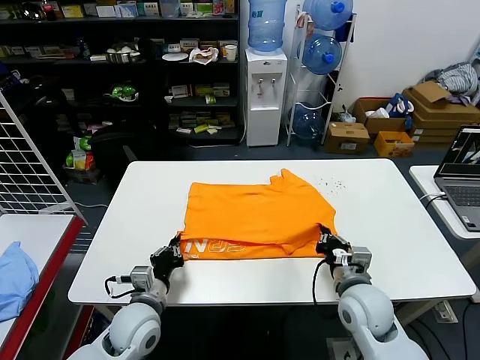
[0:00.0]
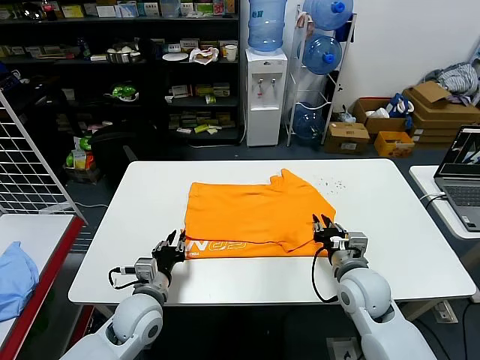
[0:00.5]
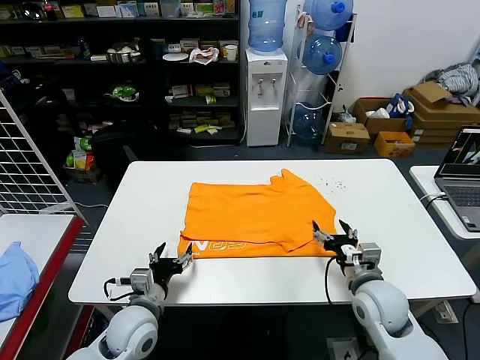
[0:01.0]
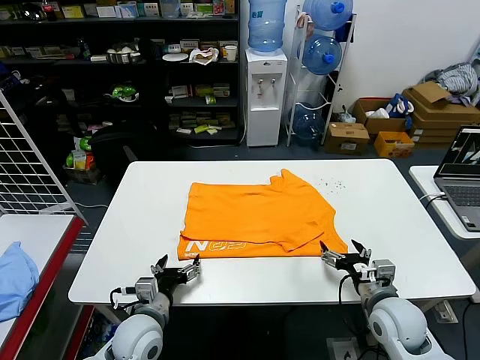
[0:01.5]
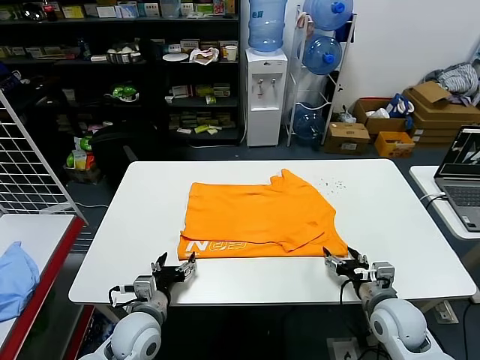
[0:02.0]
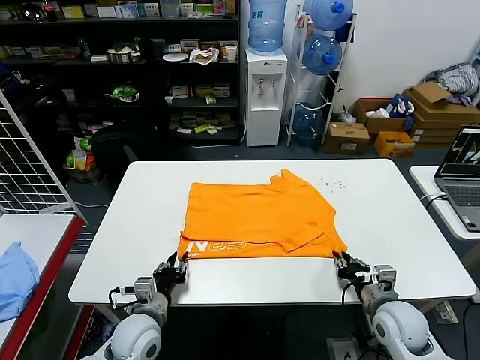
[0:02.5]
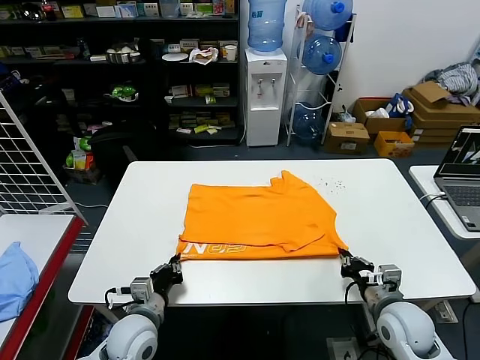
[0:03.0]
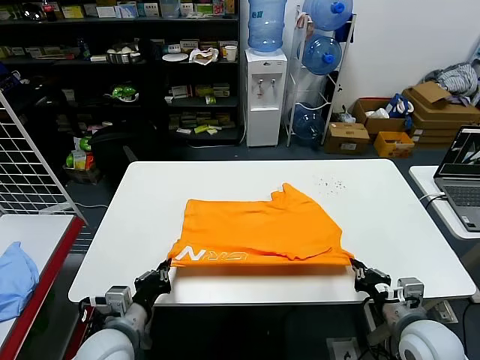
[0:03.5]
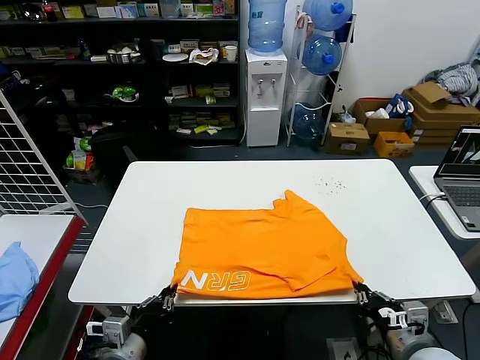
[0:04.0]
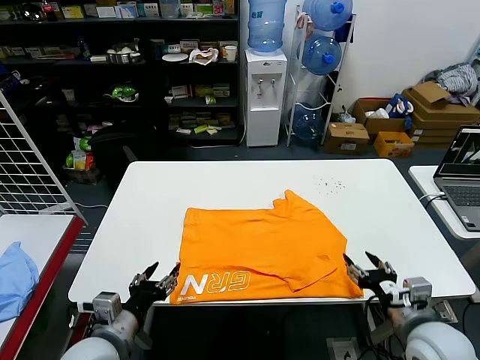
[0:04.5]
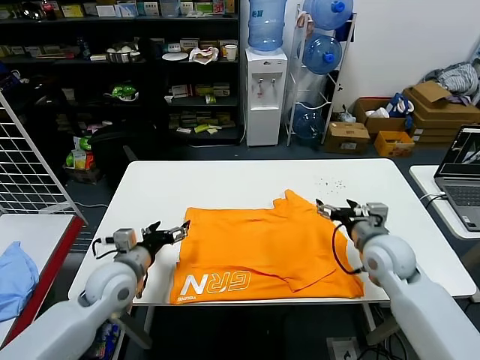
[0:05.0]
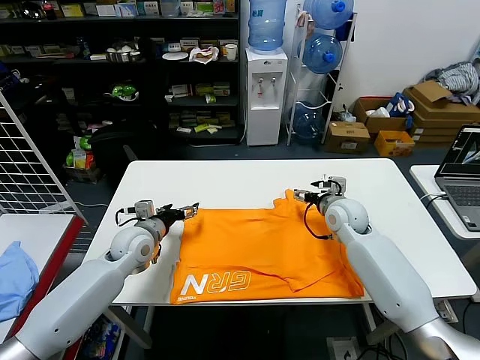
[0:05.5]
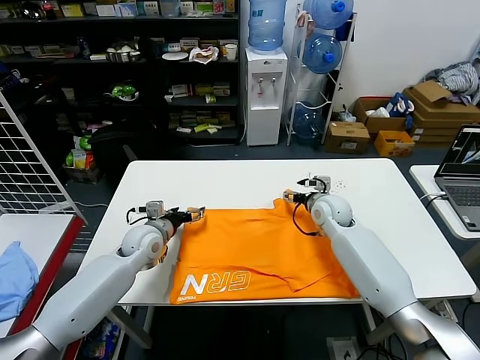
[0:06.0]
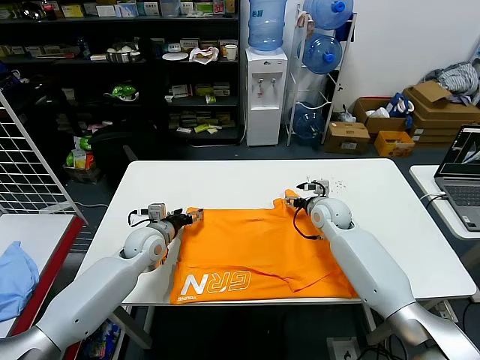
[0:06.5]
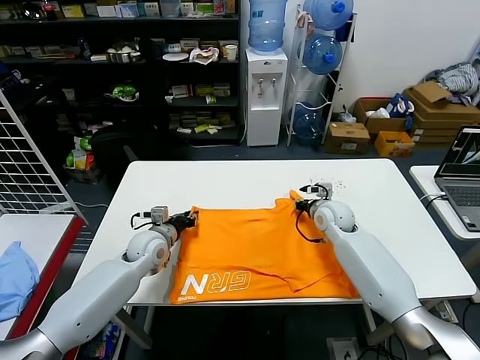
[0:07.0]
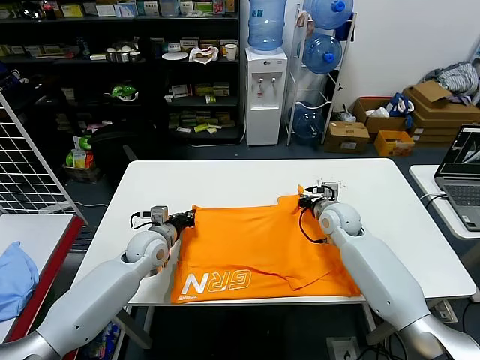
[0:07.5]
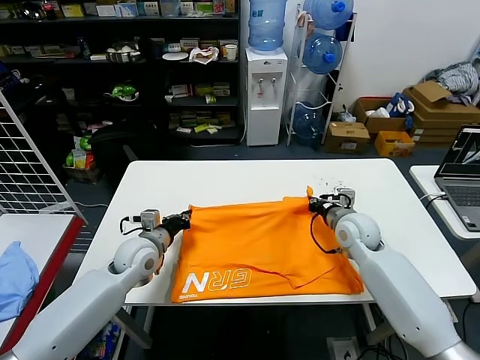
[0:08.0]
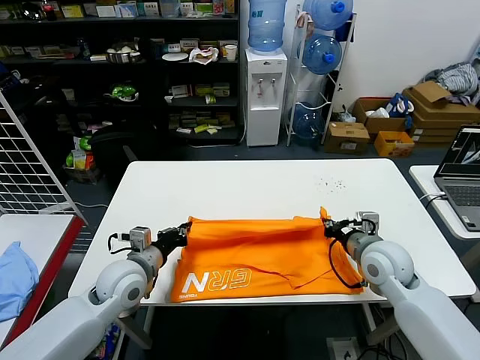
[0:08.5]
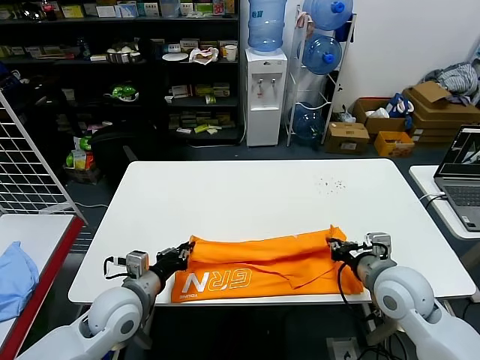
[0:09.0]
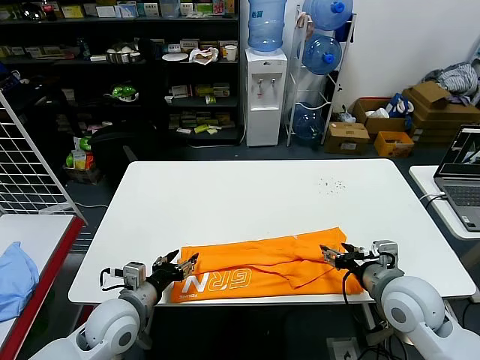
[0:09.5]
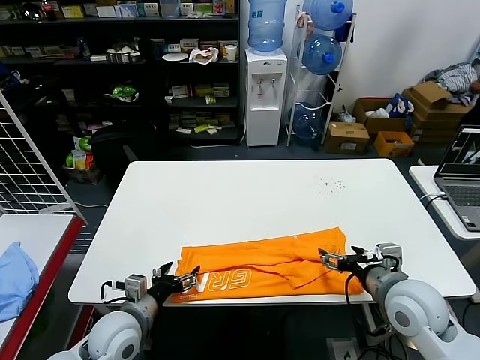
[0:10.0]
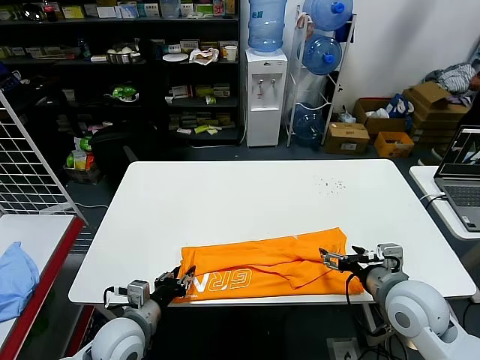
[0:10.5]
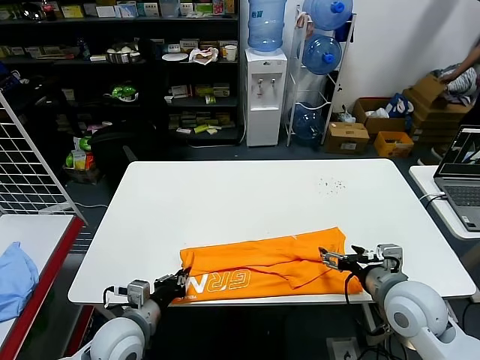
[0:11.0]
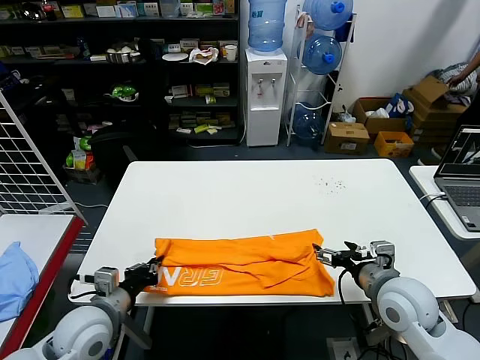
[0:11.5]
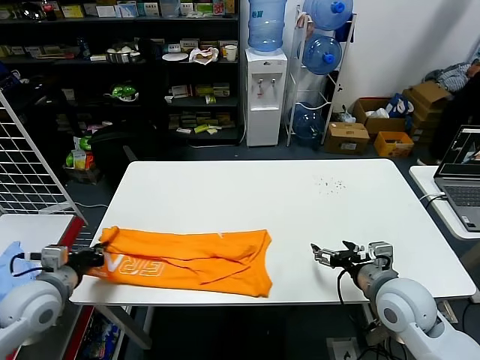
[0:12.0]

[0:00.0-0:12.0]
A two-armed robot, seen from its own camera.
Task of the whole recording: fold and organize the clothes.
Step, 0.5 to 4.0 s: Drag the clothes downward with both gripper.
Step, 4.5 to 7.0 s: use both grippers simultaneously to clamp the upper edge of the clothing fabric.
Step, 7.5 to 9.0 s: use both grippers to drag the upper edge of the fabric backward and fold it over the lower edge.
Step, 9.5 to 10.5 s: use the left gripper to clamp the left edge of the fabric.
0.0 to 2.0 s: The right gripper is displaced to the right by about 10 cm, and opens up, while the left gripper opens up.
2.0 to 4.0 s: The two grippers go roughly 10 cm backward and upward. The left gripper closes its fingers. The right gripper closes up.
4.0 to 6.0 s: The grippers both shift forward by some 30 cm. The right gripper opens its fingers; the left gripper opens.
6.0 to 8.0 s: The left gripper closes up, while the right gripper heads backward, covering about 10 cm, and closes its fingers.
8.0 to 10.0 s: The two grippers go about 15 cm backward. The right gripper opens up; the left gripper opens up.
10.0 to 12.0 s: The left gripper goes some 15 cm to the left and upward, and closes up.

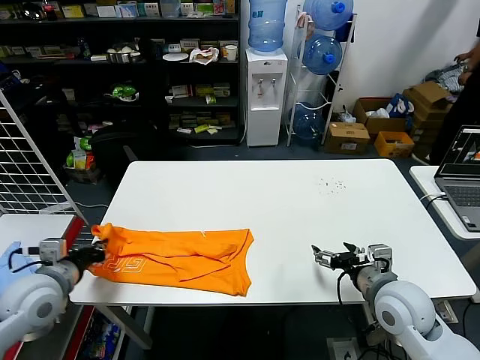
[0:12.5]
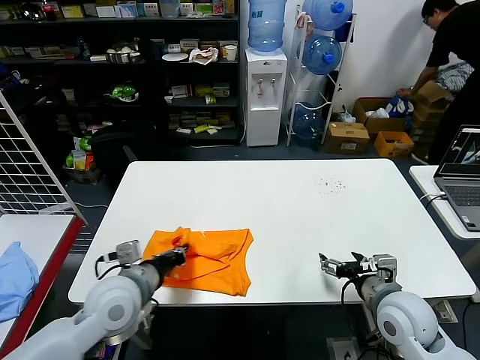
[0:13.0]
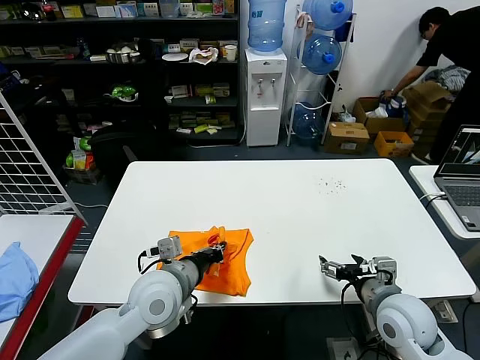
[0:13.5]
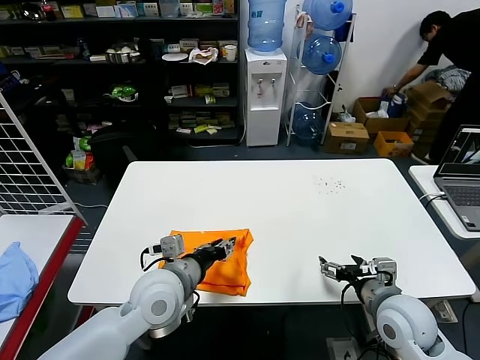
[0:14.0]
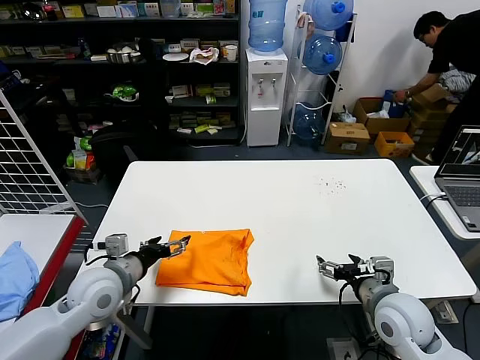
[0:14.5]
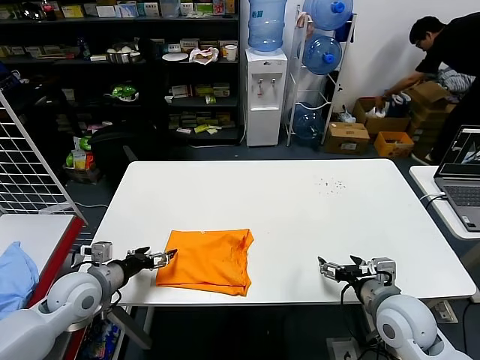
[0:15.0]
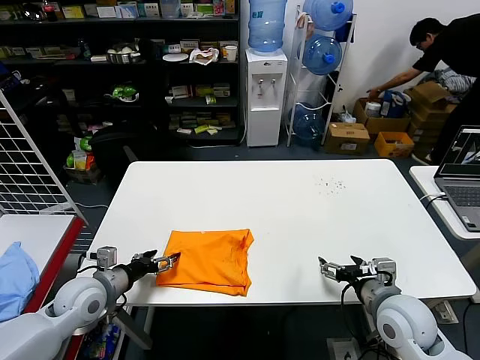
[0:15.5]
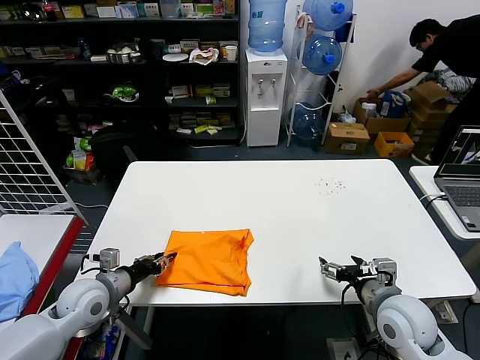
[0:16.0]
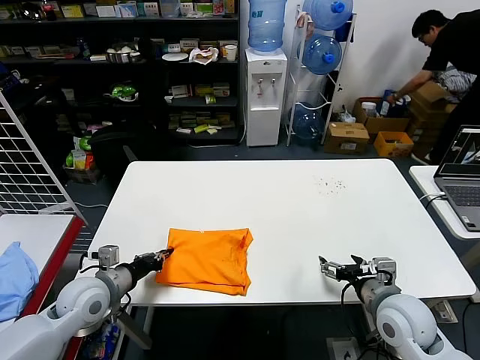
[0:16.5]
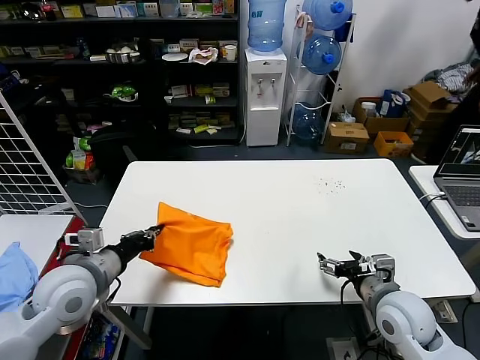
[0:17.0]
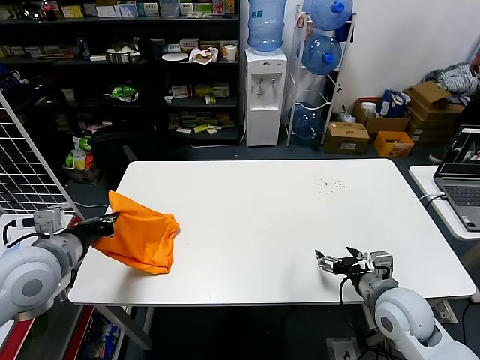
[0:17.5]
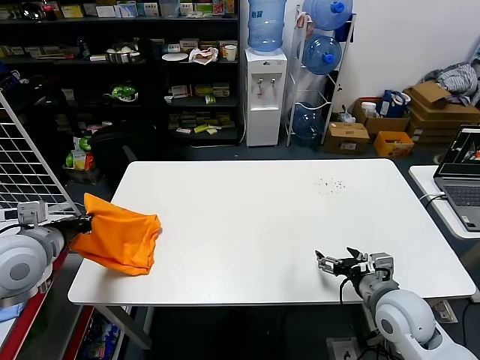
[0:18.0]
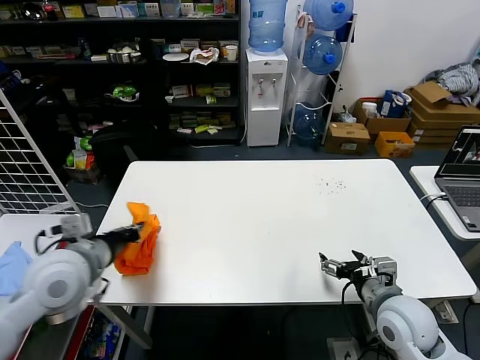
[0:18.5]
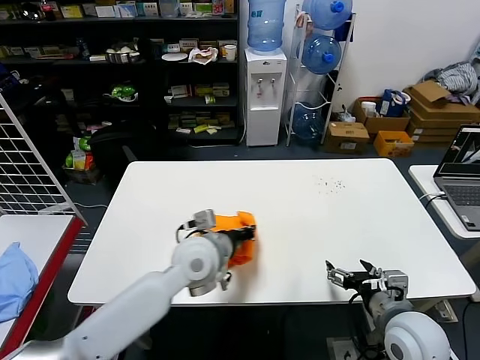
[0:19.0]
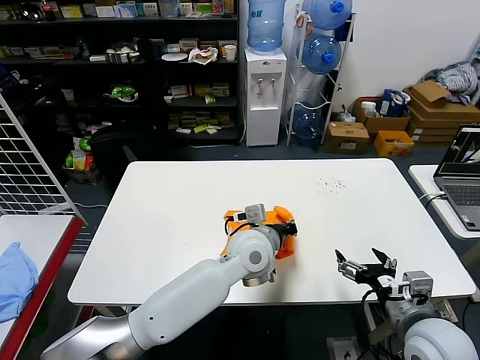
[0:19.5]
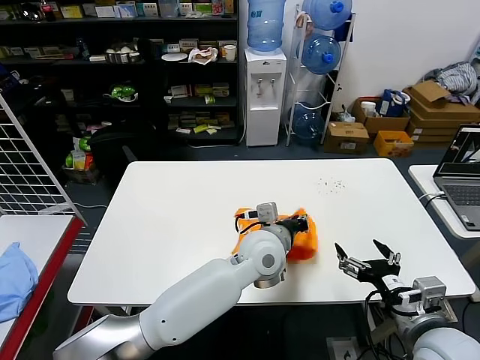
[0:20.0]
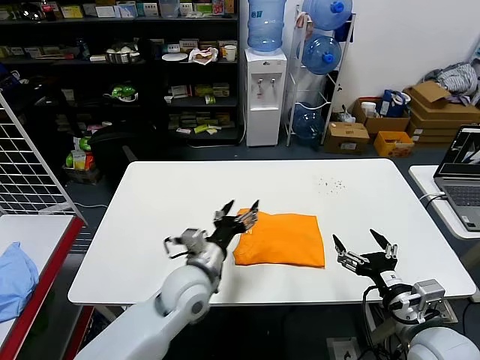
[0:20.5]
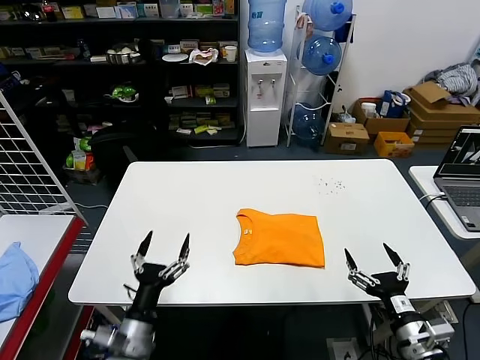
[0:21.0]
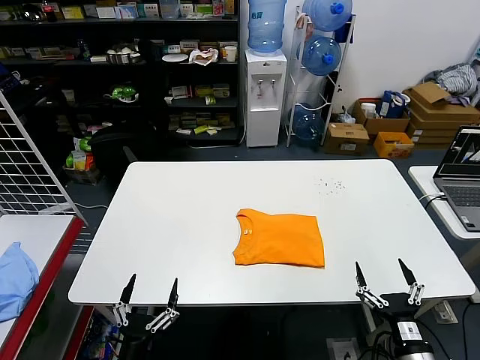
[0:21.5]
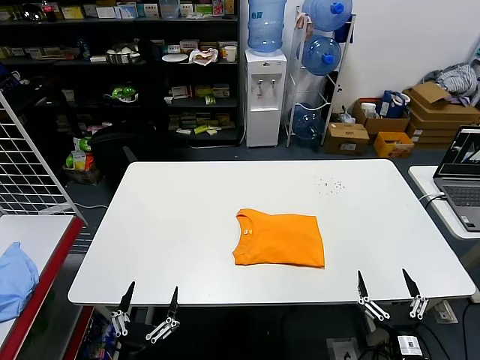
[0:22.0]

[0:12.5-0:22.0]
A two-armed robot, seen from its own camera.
Task of the whole recording: fold and organize the clothes.
Step, 14.0 to 19.5 s: Flip the folded clothes over with left gripper.
12.5 to 14.5 s: The left gripper travels to the right by about 10 cm, and opens its fingers.
14.5 to 16.5 s: The left gripper moves to the left, some 5 cm, and closes its fingers.
16.5 to 18.0 s: The left gripper goes some 15 cm upward.
18.0 to 20.0 s: The left gripper moves to the right, about 40 cm. Meanwhile the right gripper travels backward and upward by about 10 cm.
20.0 to 22.0 s: The right gripper heads downward and backward, covering about 15 cm. Meanwhile the left gripper is displaced backward, to the left and downward by about 40 cm, and opens.

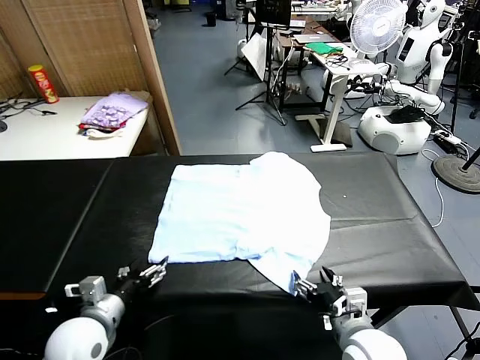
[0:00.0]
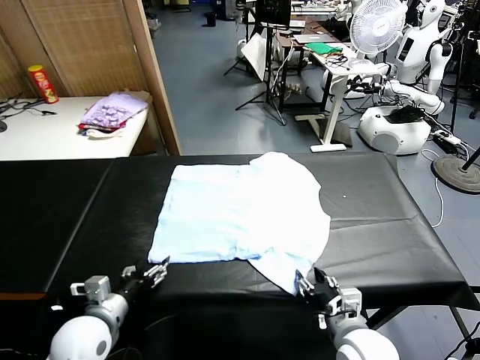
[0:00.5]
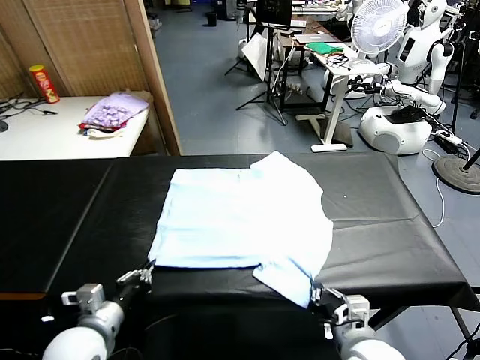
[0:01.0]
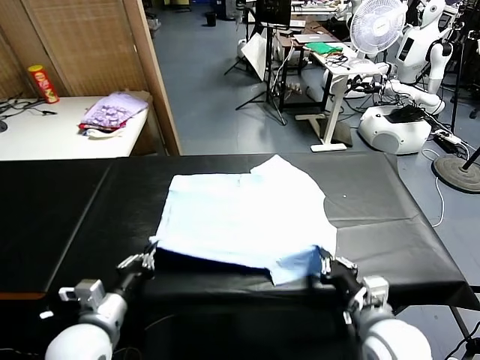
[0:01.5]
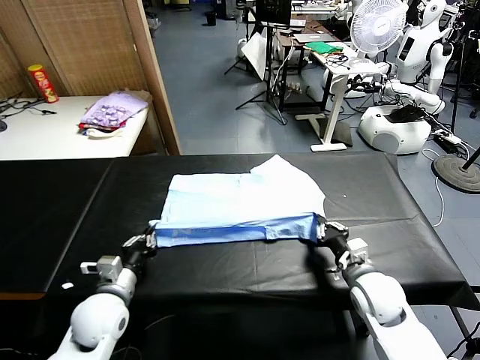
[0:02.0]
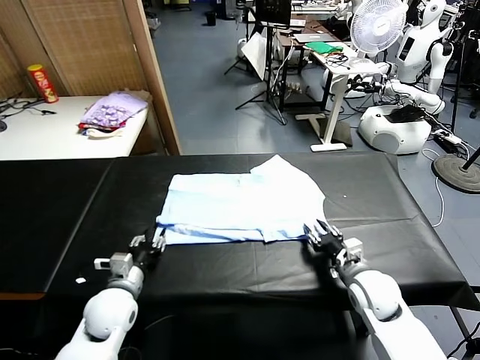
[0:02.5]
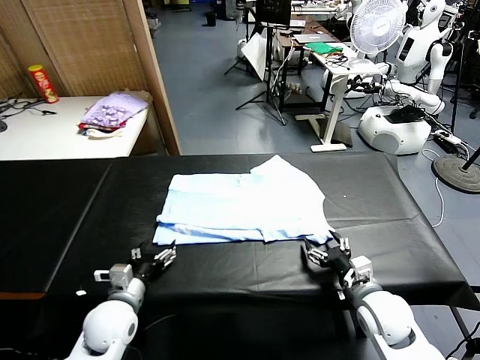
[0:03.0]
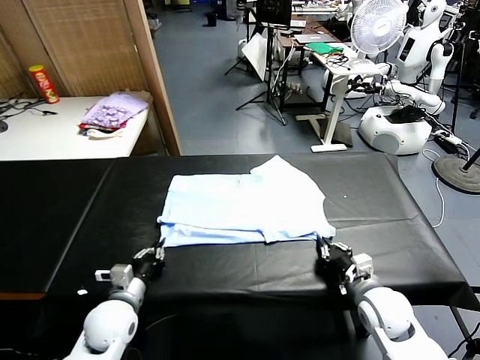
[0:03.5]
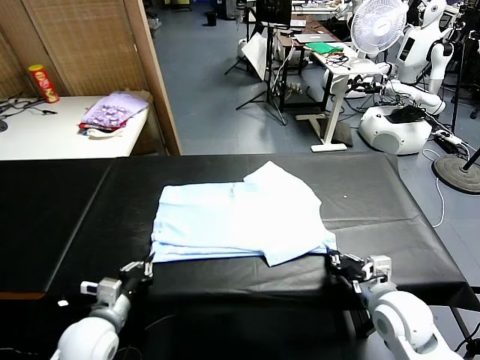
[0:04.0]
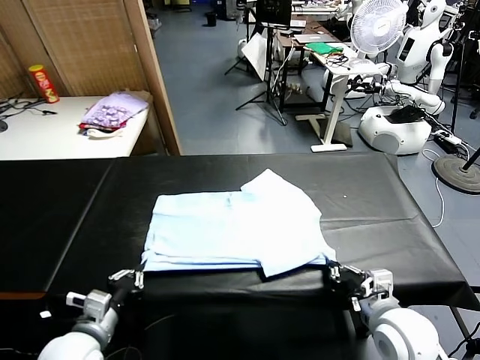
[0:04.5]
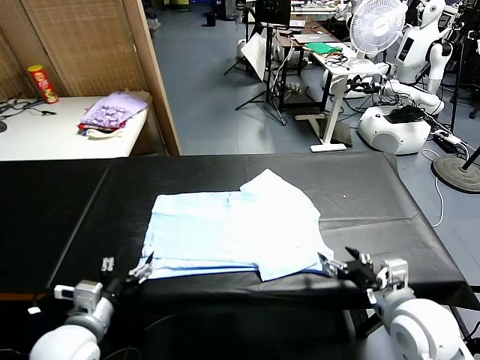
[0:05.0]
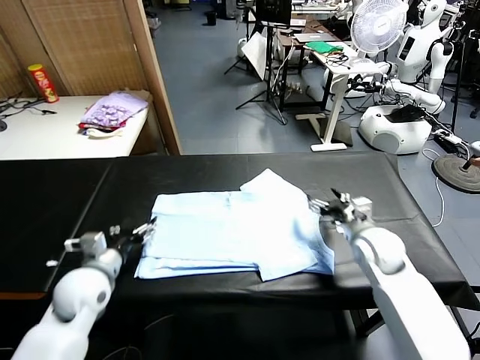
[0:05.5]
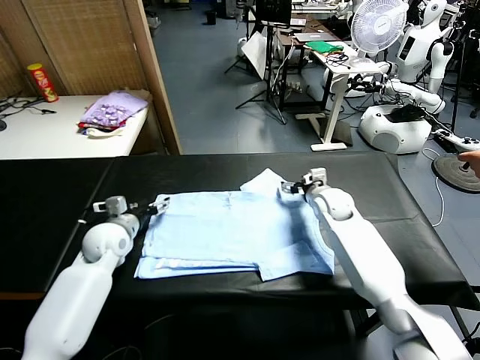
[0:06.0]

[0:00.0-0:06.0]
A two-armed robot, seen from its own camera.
Task of the whole recording: fold and organize the clothes.
Step, 0.0 to 0.5 s: use both grippers simultaneously to clamp the lower edge of the clothing fabric.
Step, 1.0 to 2.0 s: use both grippers to drag the lower edge of the fabric forward and fold it over the upper edge.
Step, 2.5 to 4.5 s: Drag the clothes downward with both gripper.
2.0 to 4.0 s: The left gripper shifts roughly 5 cm backward, and opens, then closes again. The right gripper moves backward and upward, some 15 cm, and opens, then closes again.
4.0 to 6.0 s: The right gripper moves forward, about 35 cm, and opens its fingers, while the left gripper is displaced forward by some 20 cm, and opens.
